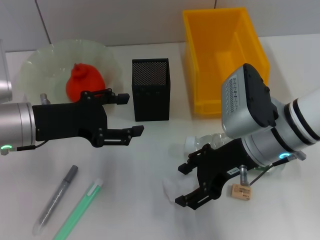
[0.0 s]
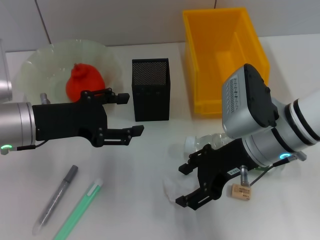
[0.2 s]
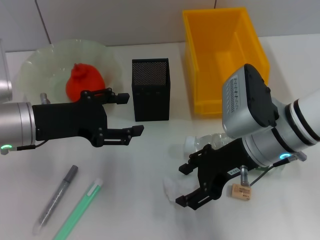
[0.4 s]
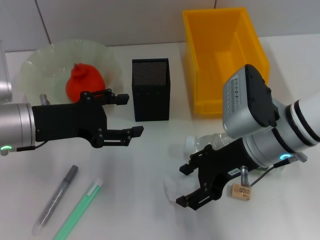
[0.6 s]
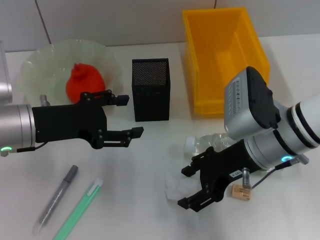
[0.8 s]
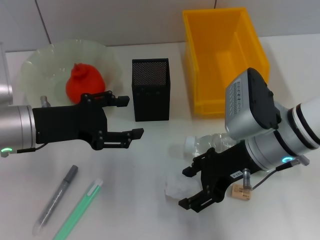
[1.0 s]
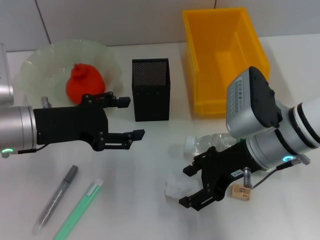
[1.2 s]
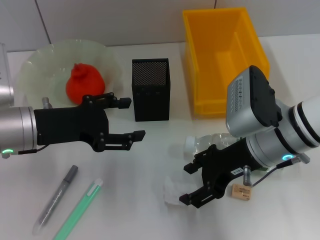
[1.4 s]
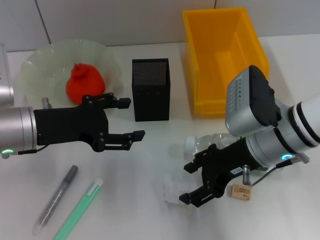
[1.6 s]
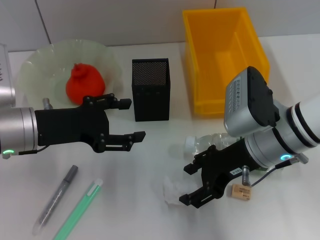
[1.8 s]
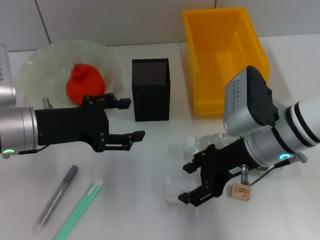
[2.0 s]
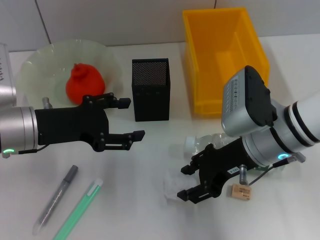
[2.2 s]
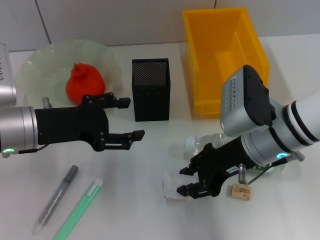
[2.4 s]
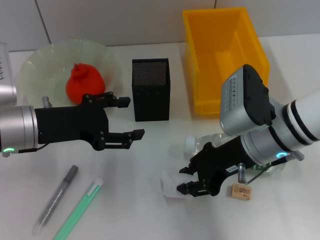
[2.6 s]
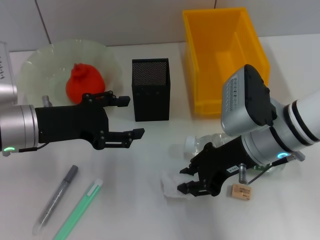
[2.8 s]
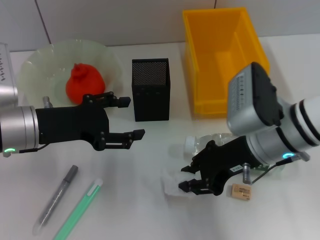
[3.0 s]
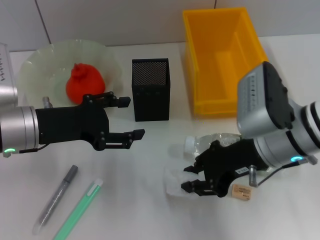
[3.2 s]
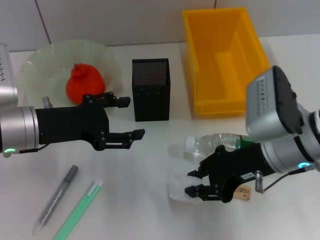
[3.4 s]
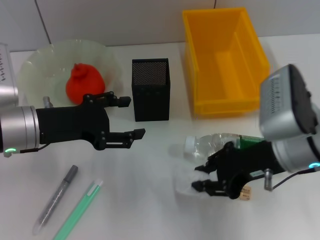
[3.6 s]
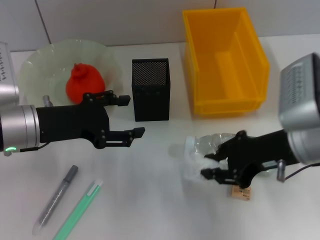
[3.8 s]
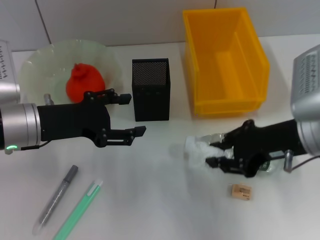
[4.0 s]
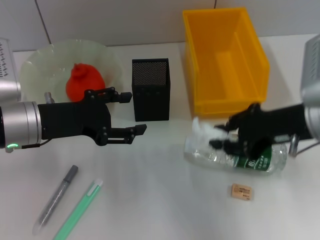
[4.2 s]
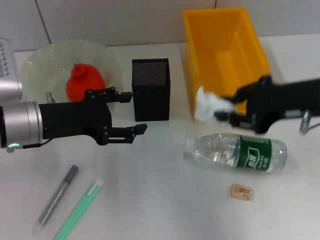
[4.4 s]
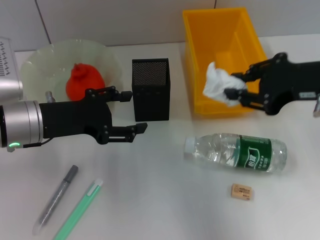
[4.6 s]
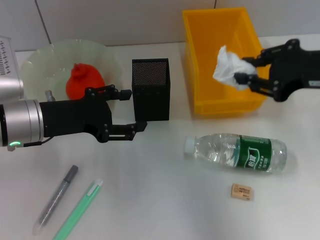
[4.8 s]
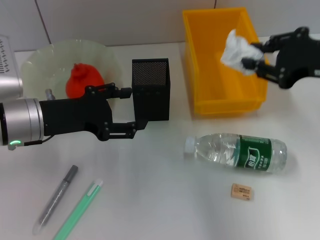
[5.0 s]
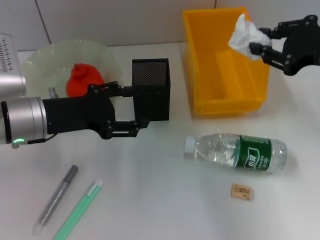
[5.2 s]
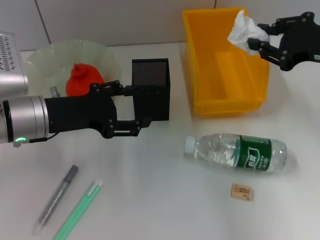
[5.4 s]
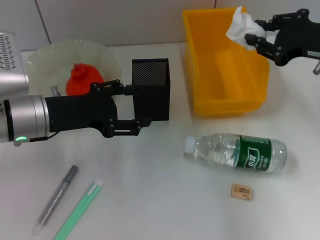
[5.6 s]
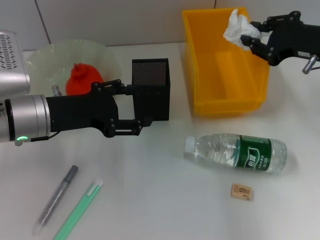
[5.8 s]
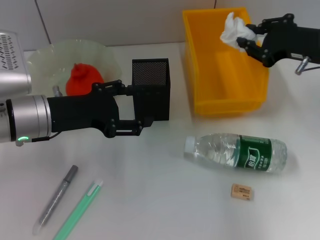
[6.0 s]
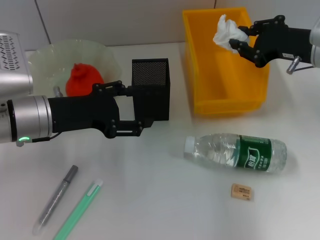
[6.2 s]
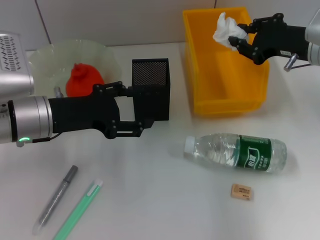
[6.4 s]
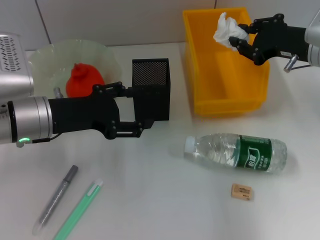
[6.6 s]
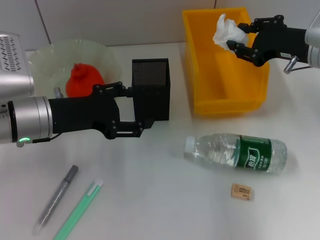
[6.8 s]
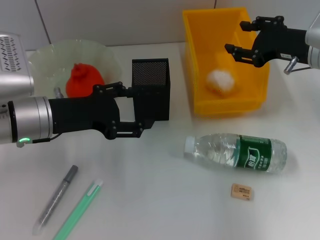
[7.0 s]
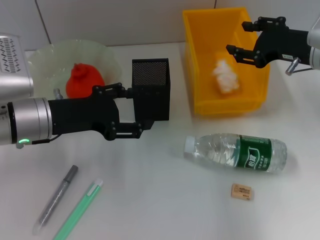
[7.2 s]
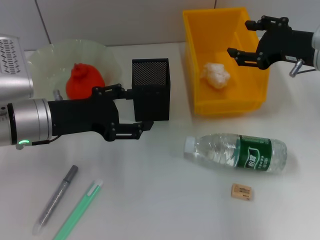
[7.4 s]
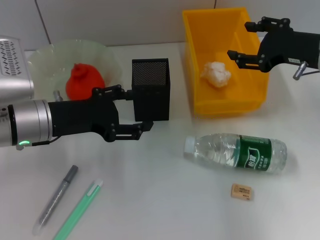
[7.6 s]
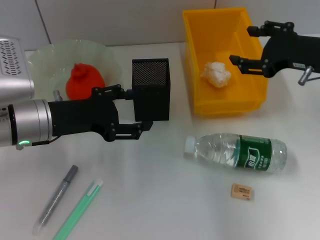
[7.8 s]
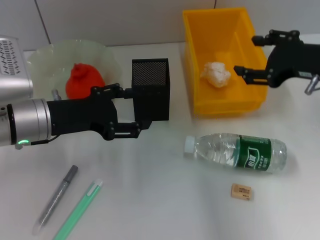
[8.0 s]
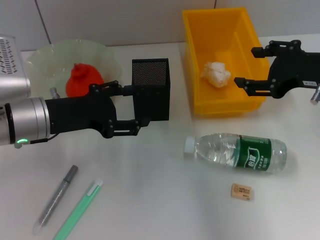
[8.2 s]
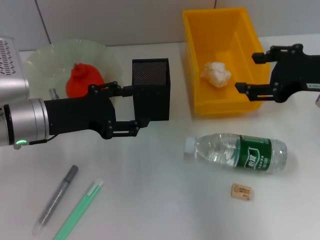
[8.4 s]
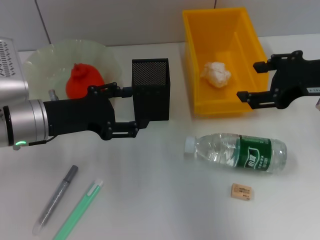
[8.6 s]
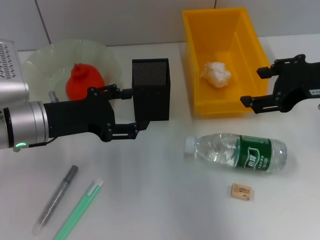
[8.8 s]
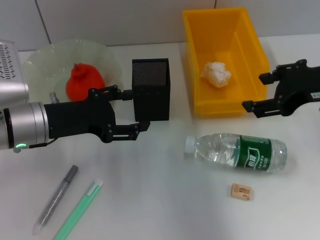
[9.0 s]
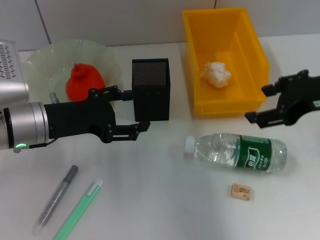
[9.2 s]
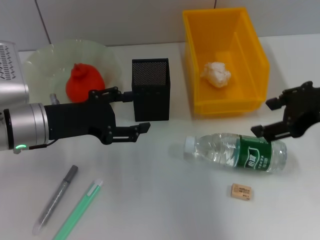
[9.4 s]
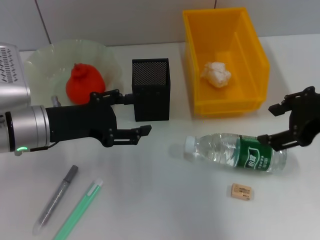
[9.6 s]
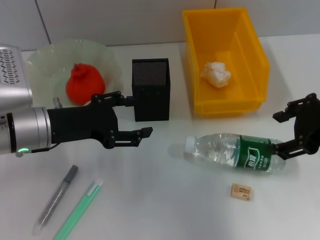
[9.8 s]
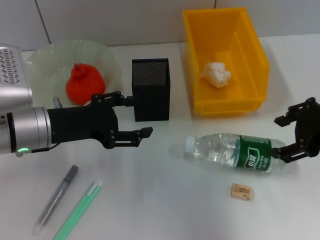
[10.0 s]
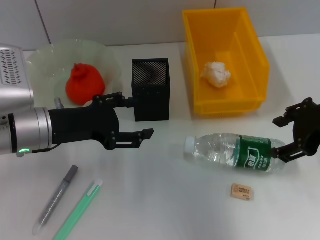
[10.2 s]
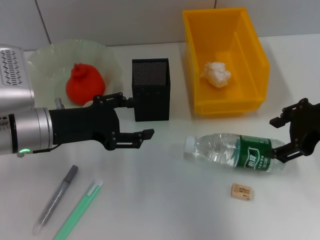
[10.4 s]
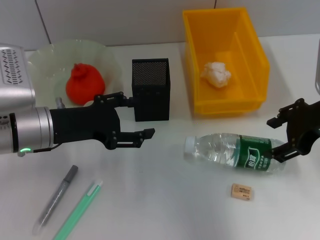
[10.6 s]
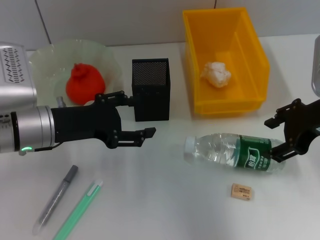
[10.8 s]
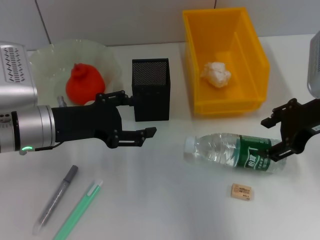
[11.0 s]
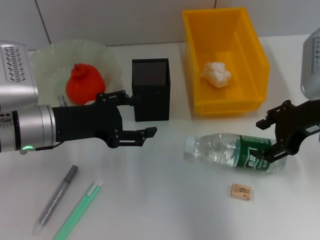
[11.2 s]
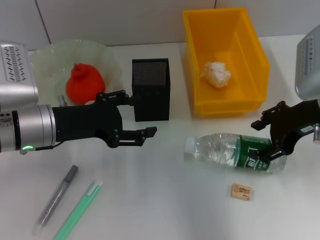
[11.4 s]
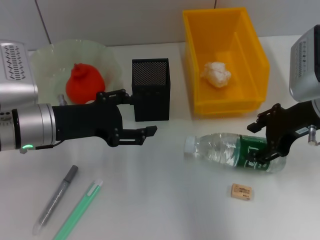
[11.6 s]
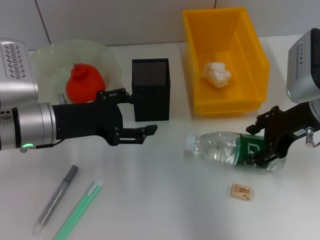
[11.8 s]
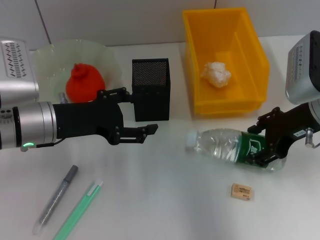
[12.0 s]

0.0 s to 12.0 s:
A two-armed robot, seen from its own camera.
Step, 0.0 to 3.4 s: Grab the paper ball with the right hand.
Step, 3.6 to 7.2 s: Place the paper ball into the trash can with the right hand.
0.0 to 1.6 s: Neither gripper changes place.
1.6 to 3.0 s: The right gripper closes its fingers.
3.0 to 4.4 s: The right gripper is displaced upward and to the right by roughly 10 cm.
4.4 to 6.0 s: The right gripper moves forward, approximately 10 cm.
6.0 to 7.6 s: The right gripper opens.
7.6 to 9.0 s: The right gripper shifts about 10 cm backward and upward.
10.4 to 12.0 s: The right gripper ends up roughly 5 cm from where it was.

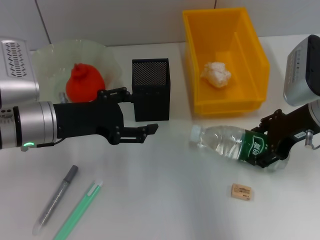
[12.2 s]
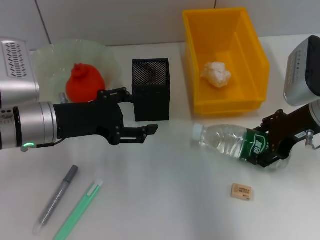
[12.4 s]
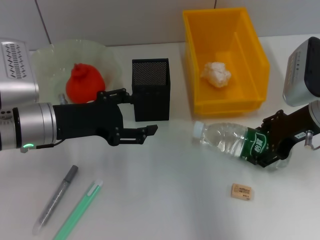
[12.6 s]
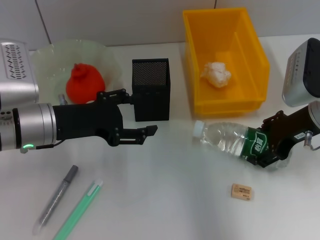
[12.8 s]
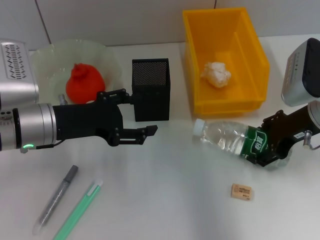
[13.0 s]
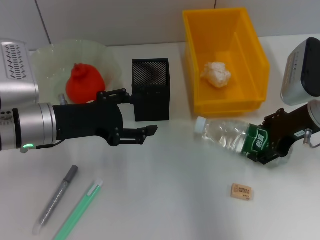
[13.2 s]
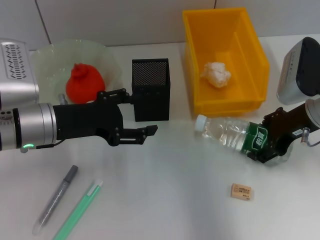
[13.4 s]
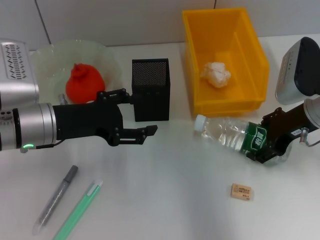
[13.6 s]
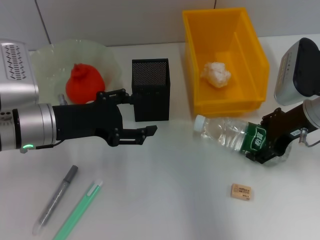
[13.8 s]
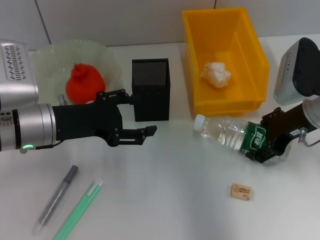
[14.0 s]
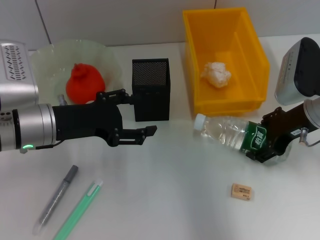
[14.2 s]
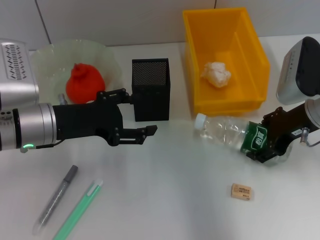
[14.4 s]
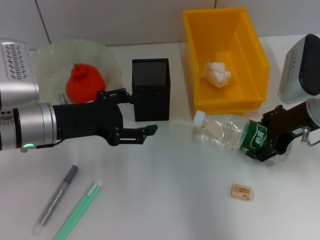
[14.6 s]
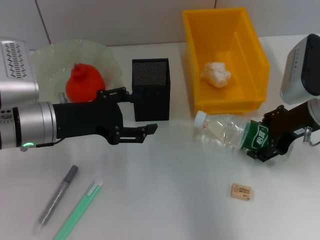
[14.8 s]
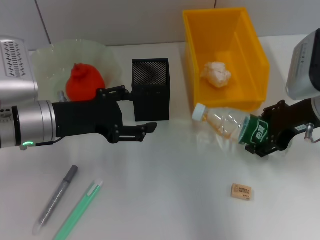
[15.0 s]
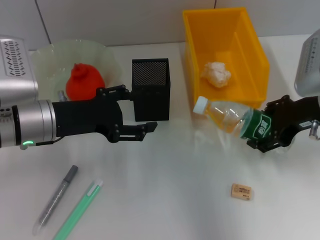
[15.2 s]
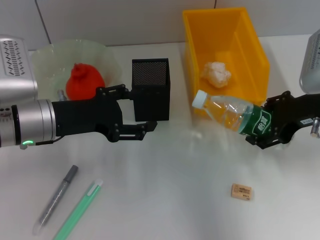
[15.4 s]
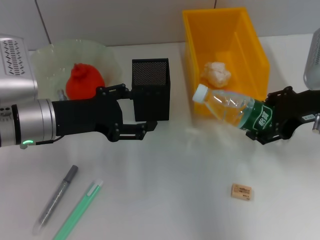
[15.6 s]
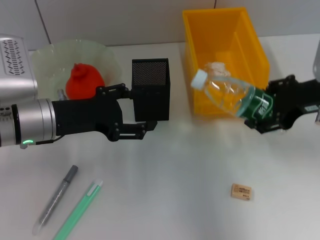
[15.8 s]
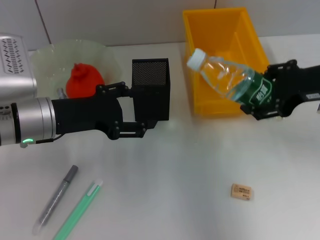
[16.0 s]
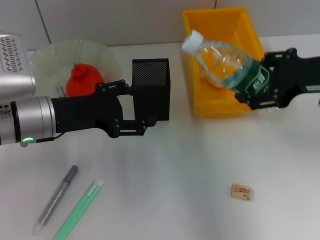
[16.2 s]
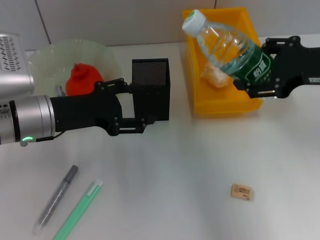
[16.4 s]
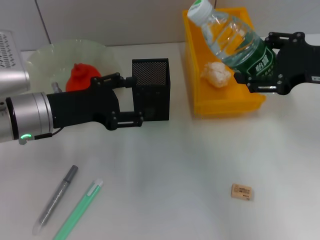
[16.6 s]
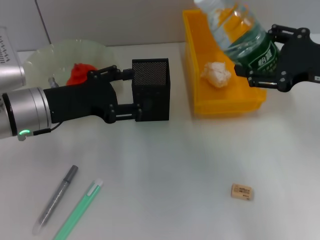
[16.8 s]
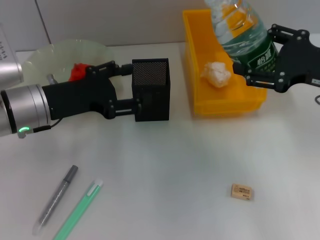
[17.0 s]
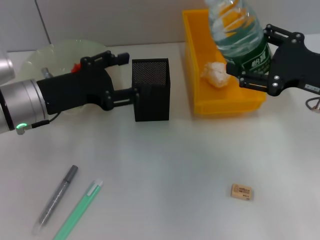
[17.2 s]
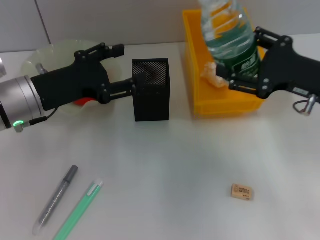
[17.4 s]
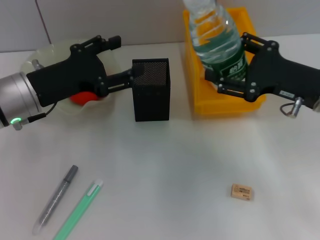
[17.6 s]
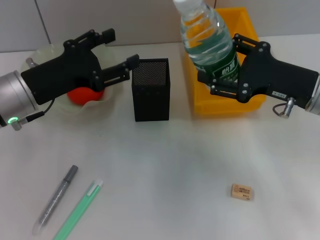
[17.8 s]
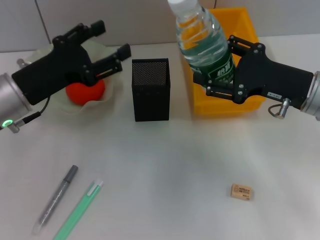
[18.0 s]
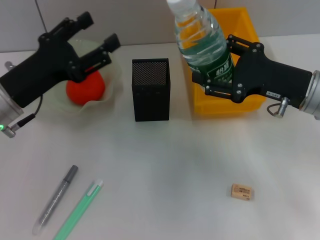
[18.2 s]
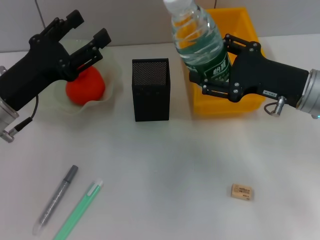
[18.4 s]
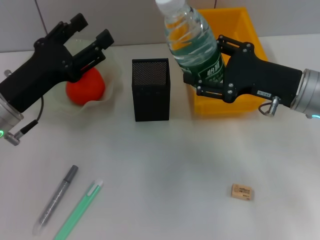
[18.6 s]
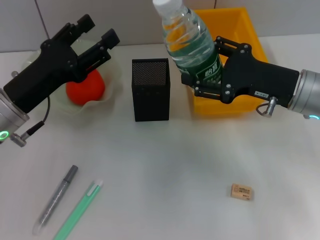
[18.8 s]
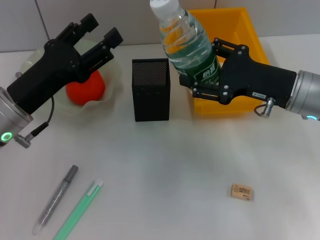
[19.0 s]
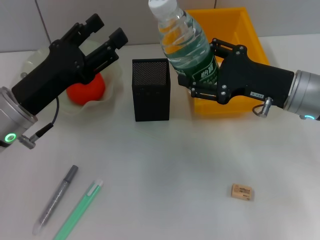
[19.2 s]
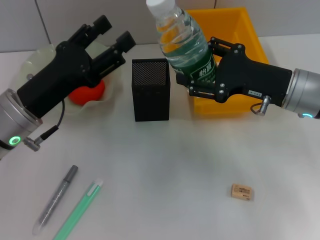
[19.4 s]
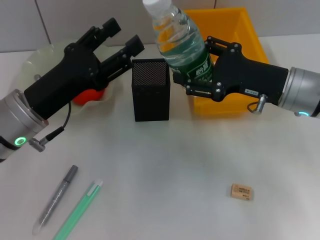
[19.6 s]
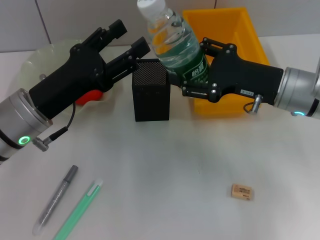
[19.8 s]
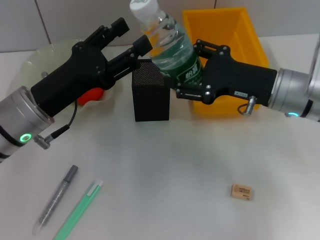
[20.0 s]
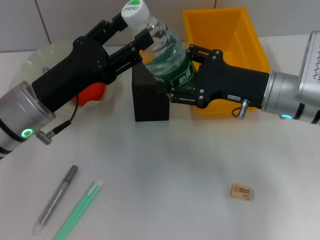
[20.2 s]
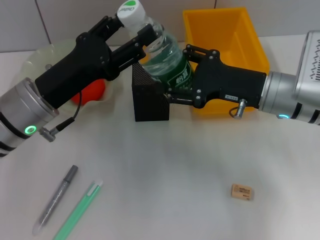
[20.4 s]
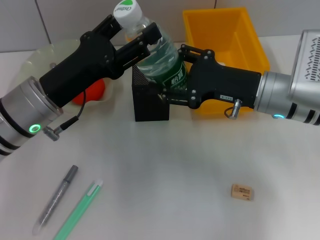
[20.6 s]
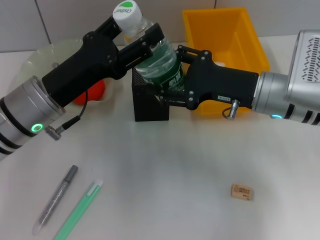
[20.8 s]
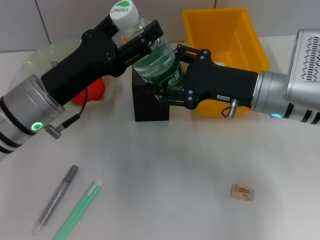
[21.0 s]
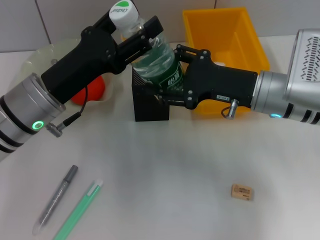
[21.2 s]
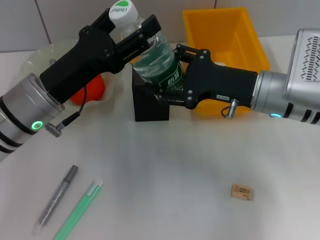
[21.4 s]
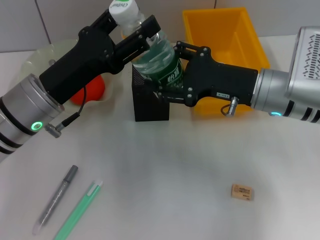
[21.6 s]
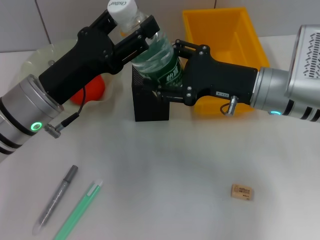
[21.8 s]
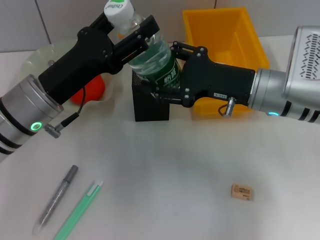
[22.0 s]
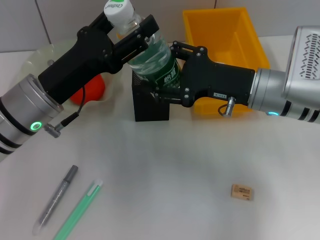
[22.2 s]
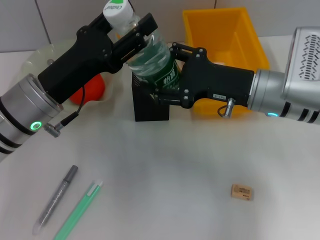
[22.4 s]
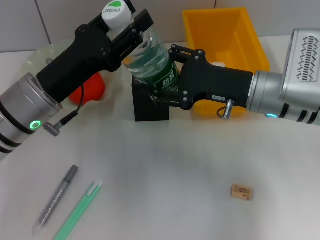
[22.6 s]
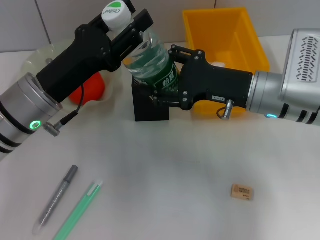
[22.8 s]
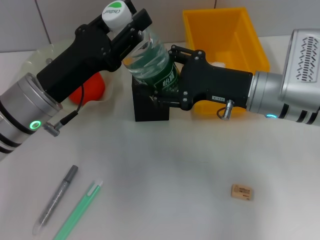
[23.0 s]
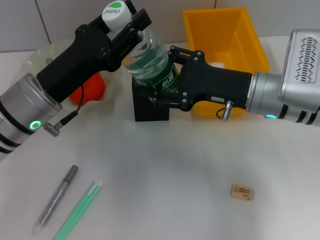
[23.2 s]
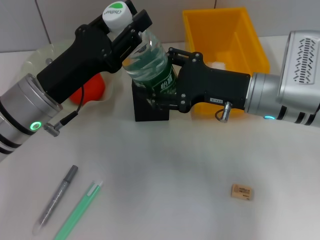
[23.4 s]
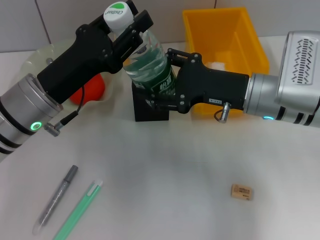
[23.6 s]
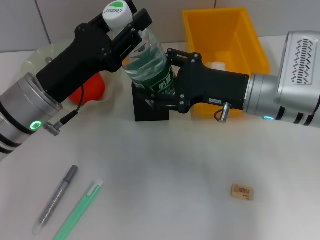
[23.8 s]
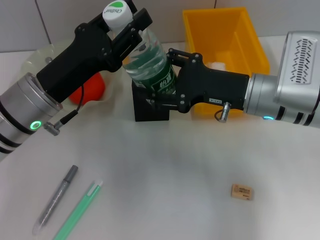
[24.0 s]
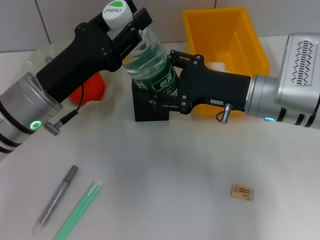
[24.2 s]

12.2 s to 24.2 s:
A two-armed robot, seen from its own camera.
Step, 12.2 to 14.2 s: Grab the water bottle with the right hand.
12.2 to 15.2 s: The grippers make only small movements.
15.2 to 16.6 s: The right gripper ends up about 5 cm from where it was.
16.6 to 18.2 s: The right gripper moves downward, roughly 10 cm.
19.8 to 21.2 s: The grippers make only small movements.
21.2 to 22.6 s: The two grippers keep their place.
22.6 to 24.2 s: The left gripper closes up.
